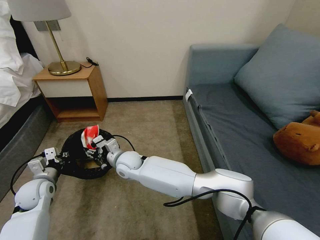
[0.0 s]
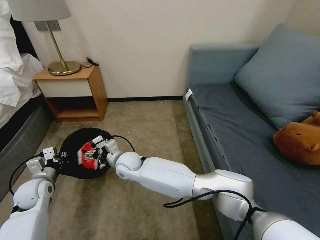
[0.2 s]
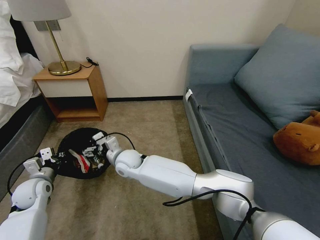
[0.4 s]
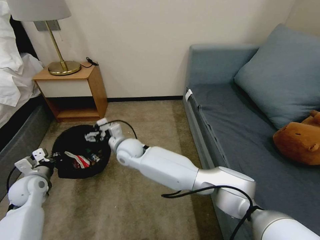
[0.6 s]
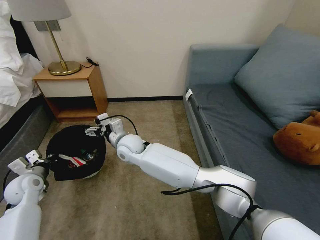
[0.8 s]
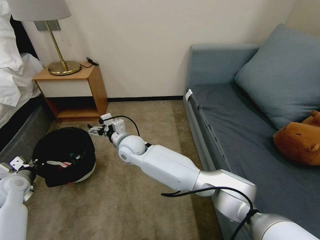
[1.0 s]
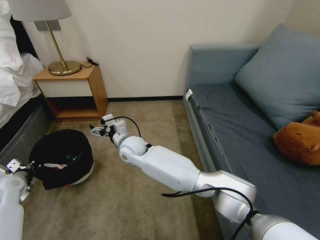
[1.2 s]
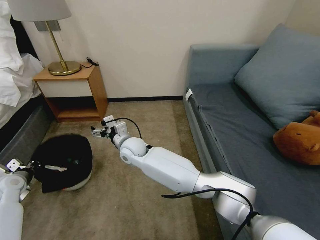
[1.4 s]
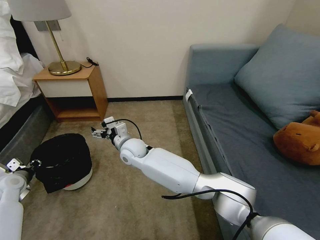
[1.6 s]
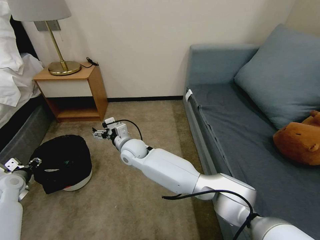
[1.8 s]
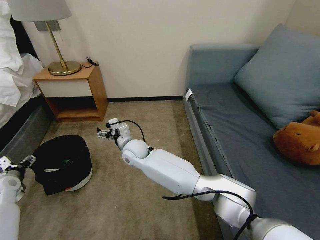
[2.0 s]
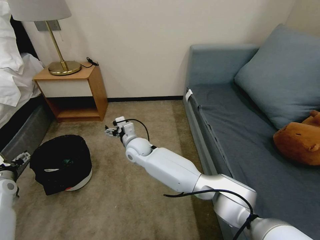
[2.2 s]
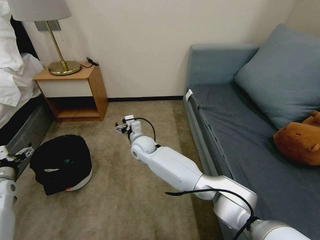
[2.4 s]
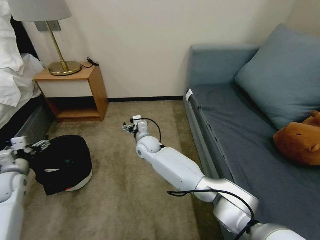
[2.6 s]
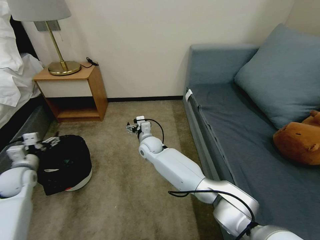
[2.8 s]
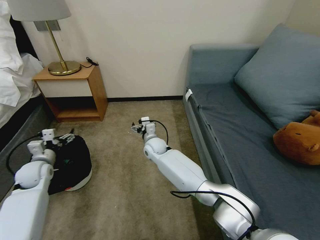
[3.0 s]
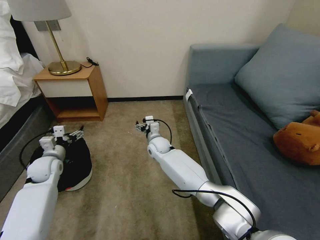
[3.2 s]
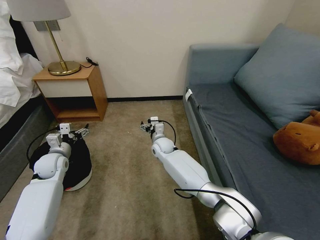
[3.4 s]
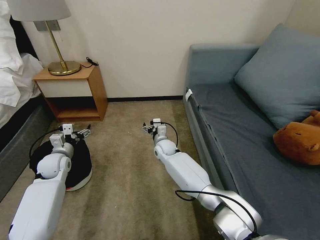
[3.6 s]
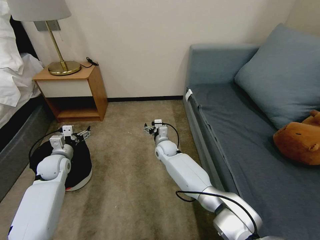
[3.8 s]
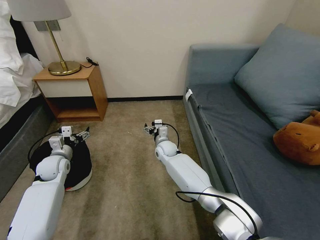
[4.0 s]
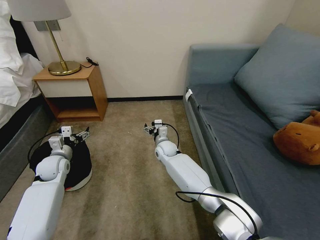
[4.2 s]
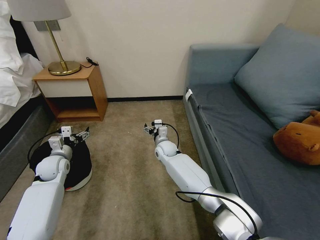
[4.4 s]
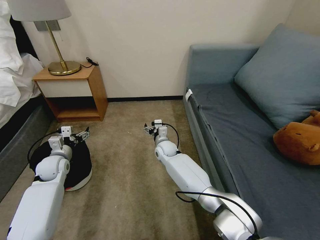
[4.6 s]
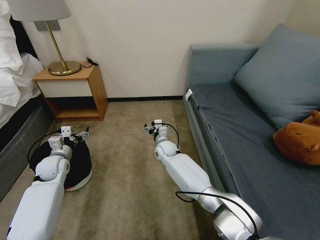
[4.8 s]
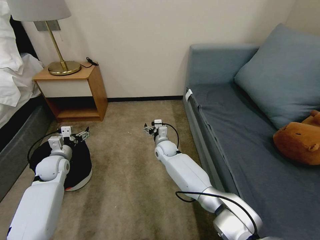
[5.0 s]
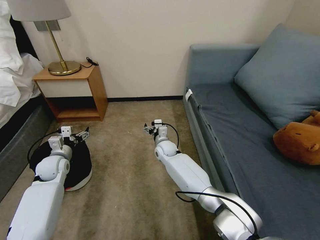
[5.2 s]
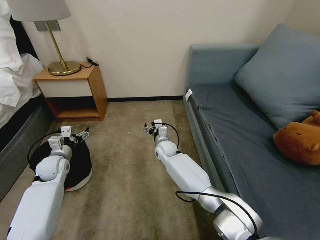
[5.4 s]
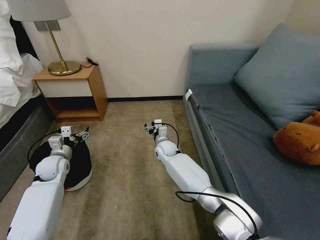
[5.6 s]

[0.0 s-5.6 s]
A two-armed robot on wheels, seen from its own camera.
Task of the whole recording: Pick up the trash bin, then pick up the garbage on the floor and place it into the trash bin.
0.0 to 1.4 s: The left gripper is displaced to the left by some 10 cm, while the right gripper shifts by about 5 cm, and opens up.
1.4 to 2.8 s: The right gripper shifts roughly 10 cm to the right, downward and forward. The left gripper moves approximately 5 cm, and opens.
2.8 to 4.2 s: The right gripper travels to the right by approximately 5 cm. The left gripper goes approximately 10 cm to the right and forward.
4.2 to 5.6 s: The two grippers keep their place.
